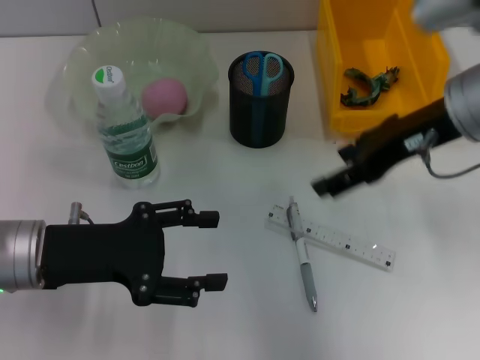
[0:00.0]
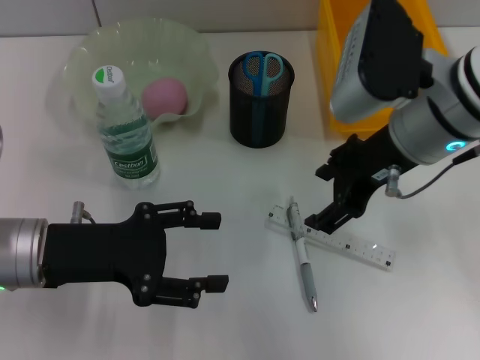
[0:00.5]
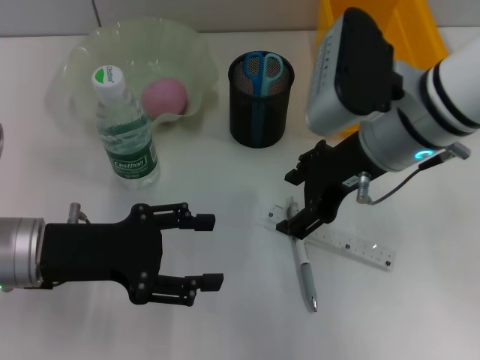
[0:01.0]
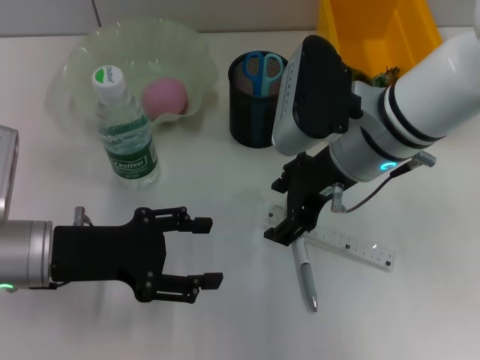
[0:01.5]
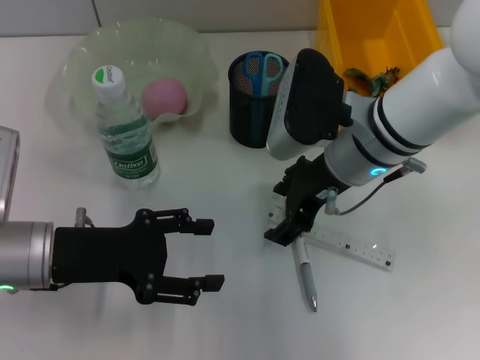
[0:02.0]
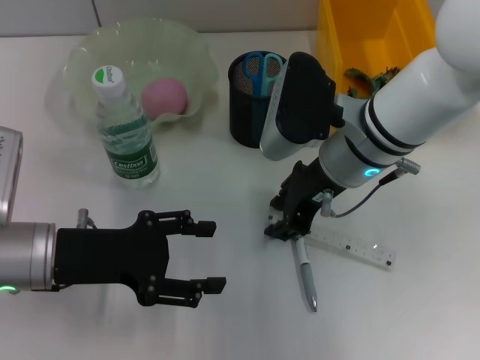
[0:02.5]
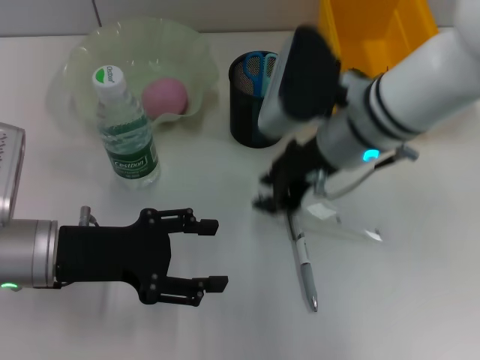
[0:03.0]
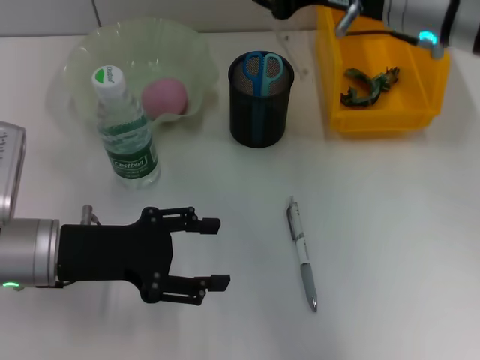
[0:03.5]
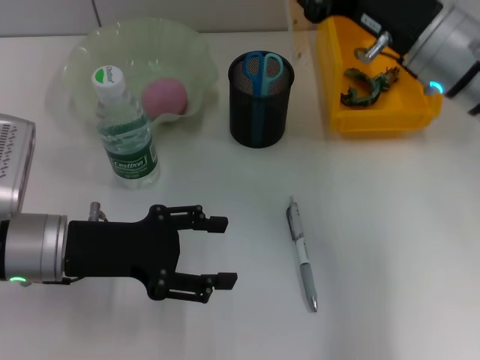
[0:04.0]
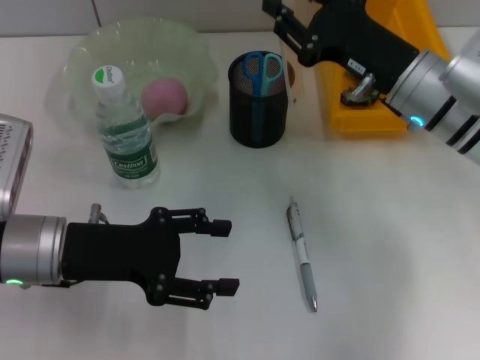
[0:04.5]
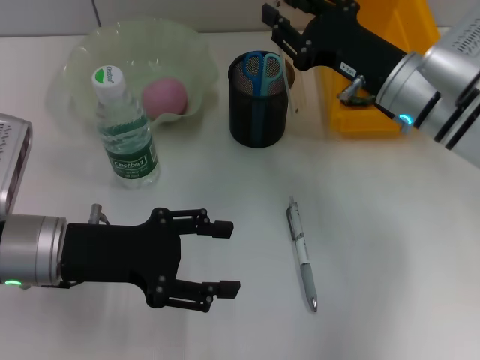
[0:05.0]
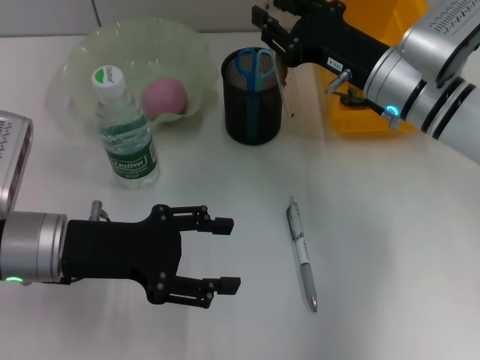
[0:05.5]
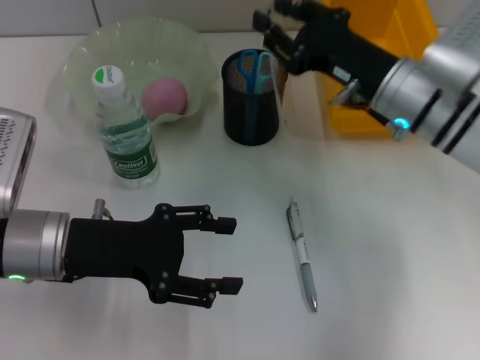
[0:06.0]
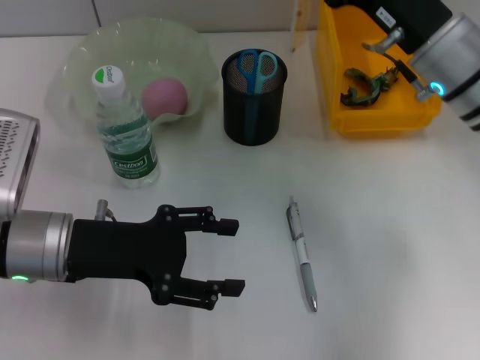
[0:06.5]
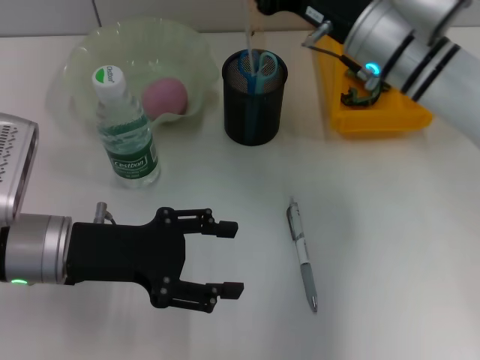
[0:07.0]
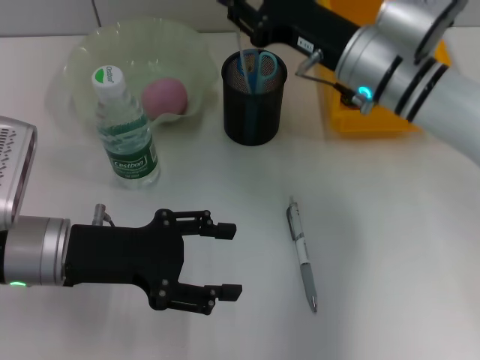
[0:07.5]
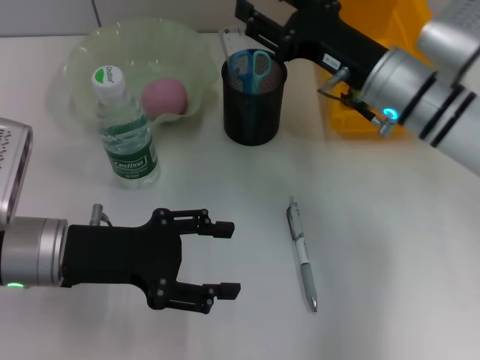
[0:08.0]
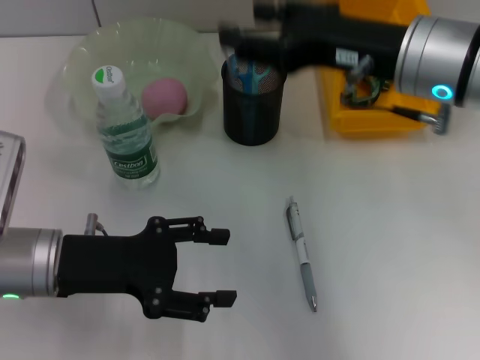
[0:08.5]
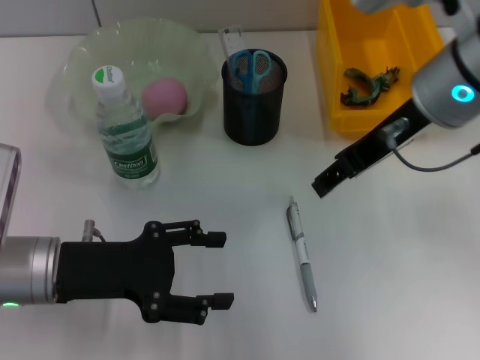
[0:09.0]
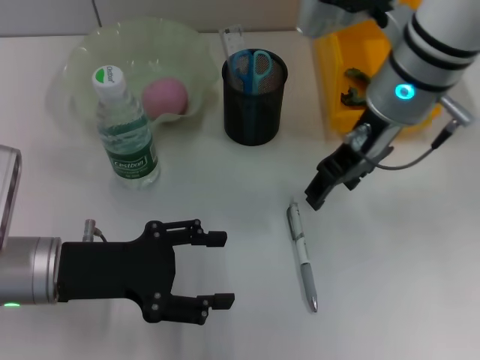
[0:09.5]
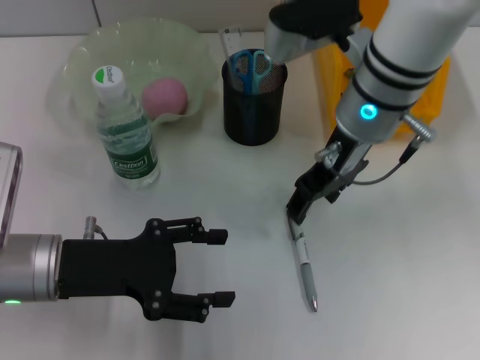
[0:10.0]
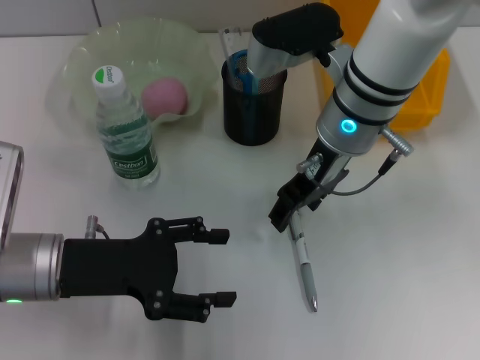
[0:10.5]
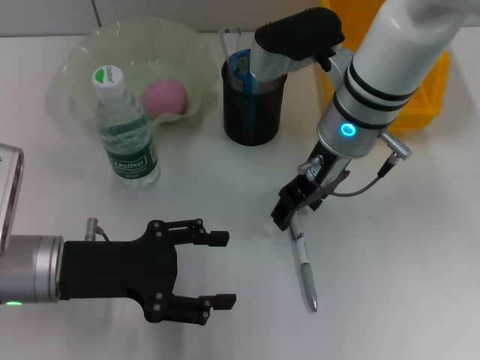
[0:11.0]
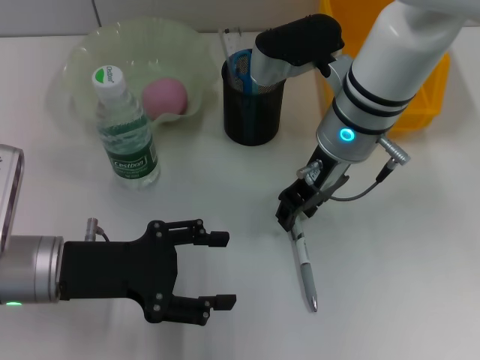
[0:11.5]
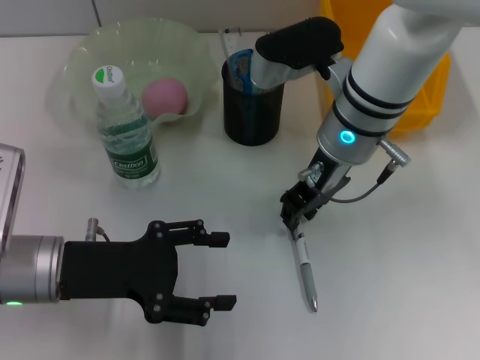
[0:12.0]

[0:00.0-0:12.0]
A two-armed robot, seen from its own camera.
Step, 0:00.0 to 0:02.5: Grab the ruler with the right hand.
Step, 0:03.0 to 0:08.0: Place the ruler into the pen holder with the right hand.
0:00.0 to 0:02.0: The right gripper moves to the left and downward, roughly 10 cm.
0:02.0 to 0:04.0: The right gripper goes about 5 cm to the right, goes upward and returns, some 10 cm each way, and closes.
0:04.0 to 0:06.0: The right gripper shifts about 5 cm downward.
0:06.0 to 0:08.0: The grippers stay close to where they were, moving slightly.
0:08.0 to 0:10.0: The right gripper travels to the left and upward by about 10 cm.
0:10.0 to 0:12.0: The right gripper closes up.

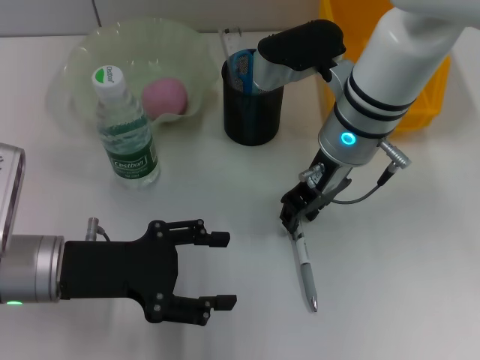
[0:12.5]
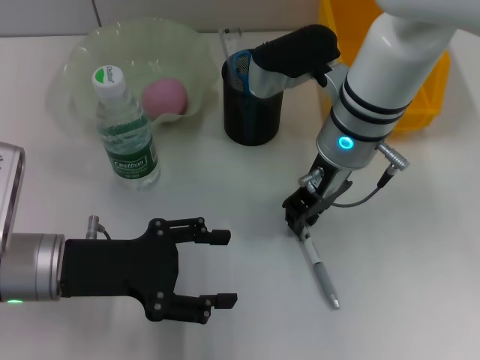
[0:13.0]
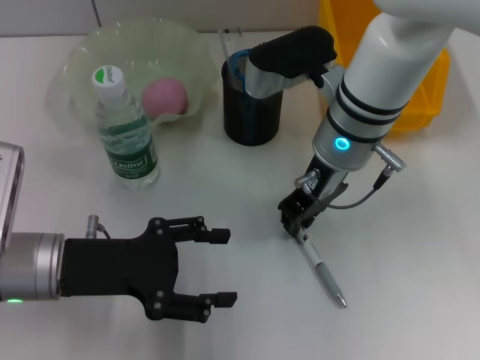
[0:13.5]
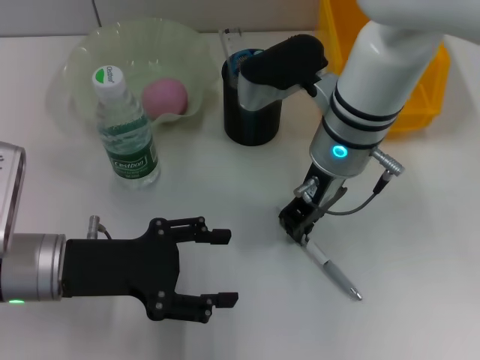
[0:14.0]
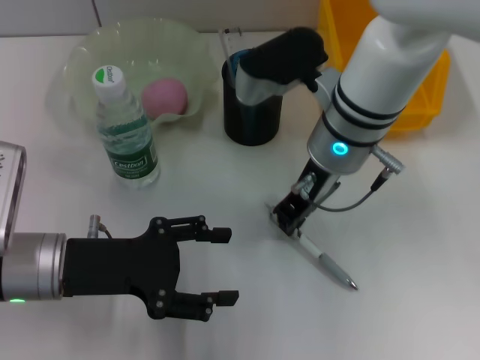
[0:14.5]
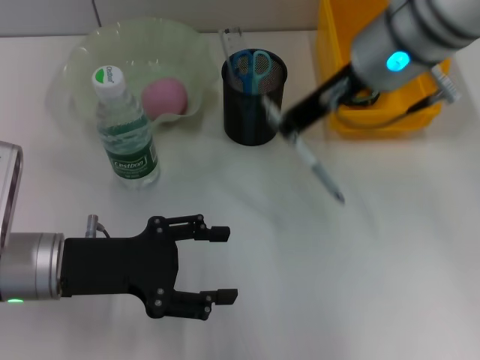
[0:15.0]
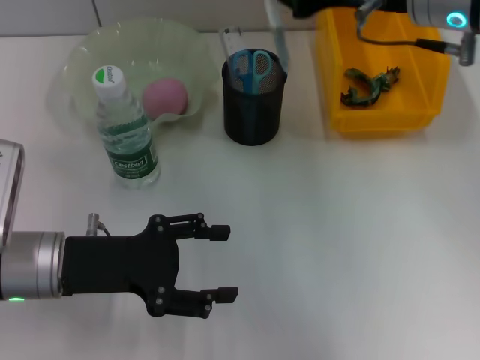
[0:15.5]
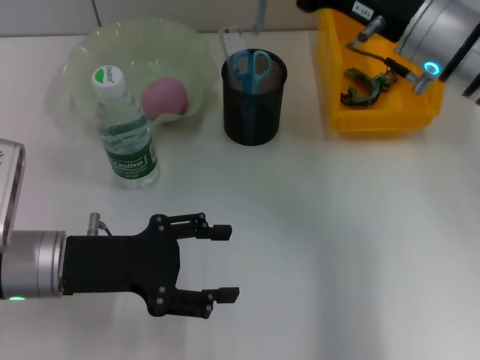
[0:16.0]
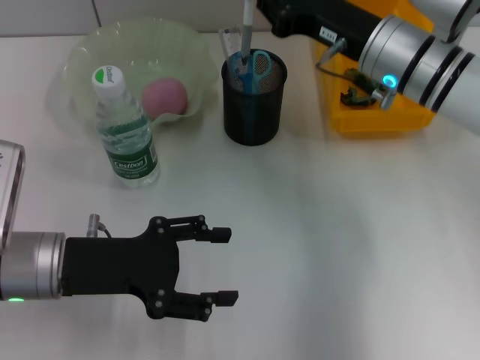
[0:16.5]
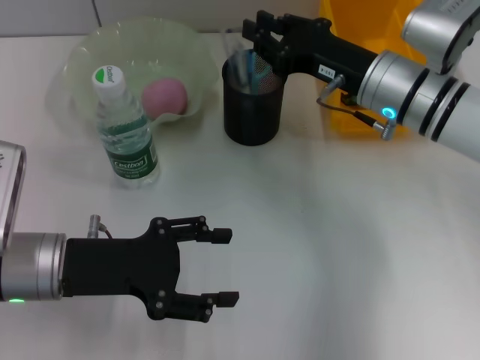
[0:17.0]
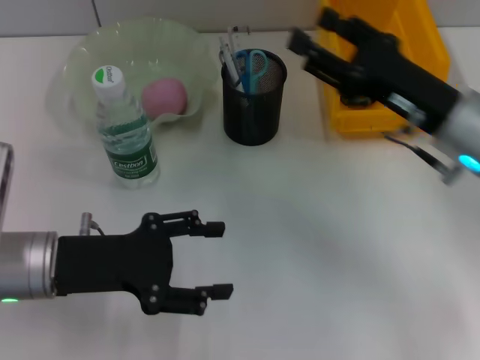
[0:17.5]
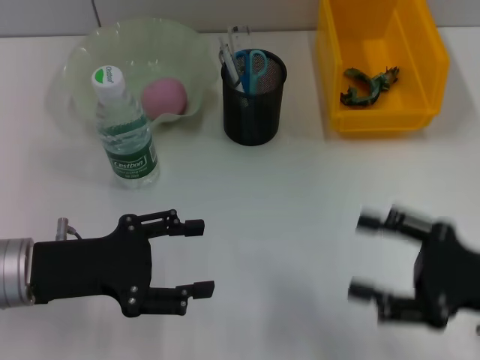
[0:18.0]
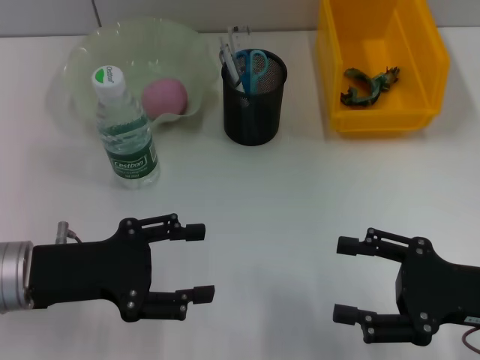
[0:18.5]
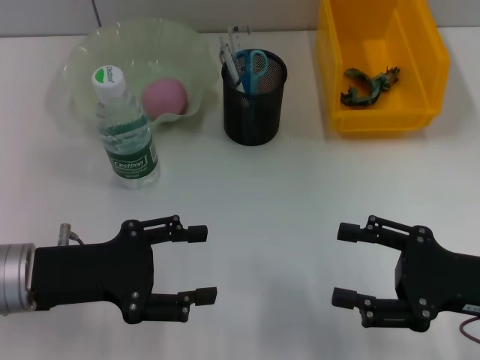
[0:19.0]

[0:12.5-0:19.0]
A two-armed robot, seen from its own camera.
Step, 0:13.5 to 0:17.0: Place the gray spring-action pen into the pen holder with the right hand.
0:12.5 to 0:14.5: The grippers make only small movements.
0:14.5 to 0:17.0: The right gripper heads to the right, covering some 10 cm, and goes upward and returns, approximately 10 cm each way.
0:17.0 to 0:19.0: The right gripper travels backward and to the right by some 20 cm, and opens.

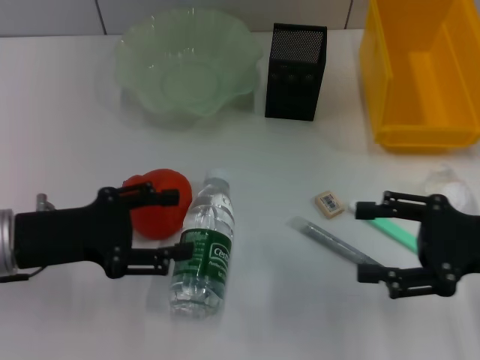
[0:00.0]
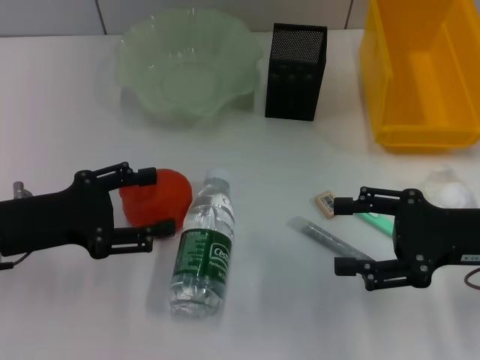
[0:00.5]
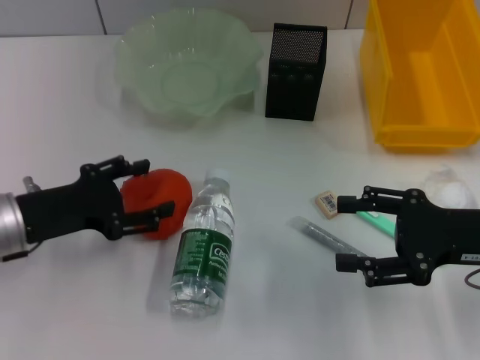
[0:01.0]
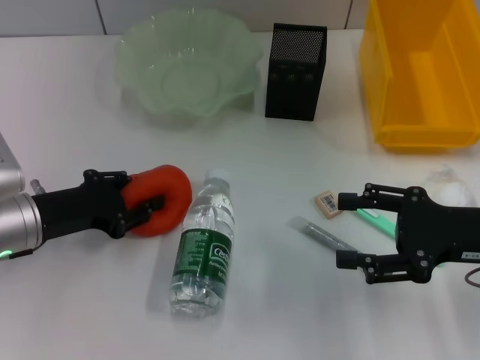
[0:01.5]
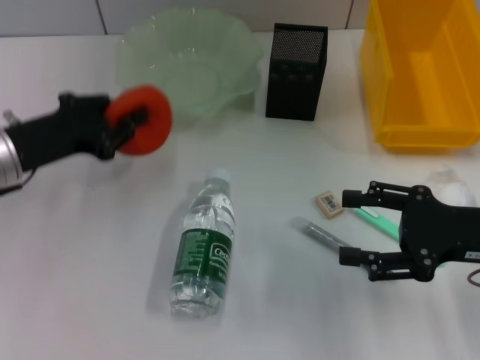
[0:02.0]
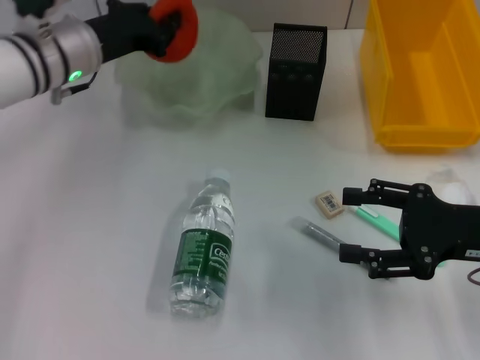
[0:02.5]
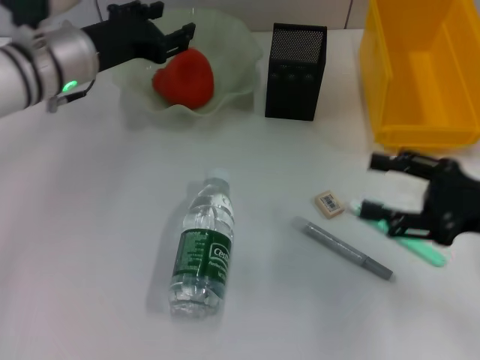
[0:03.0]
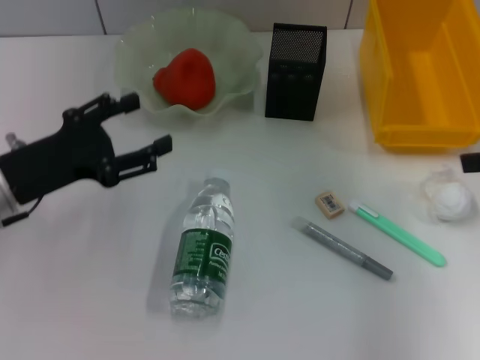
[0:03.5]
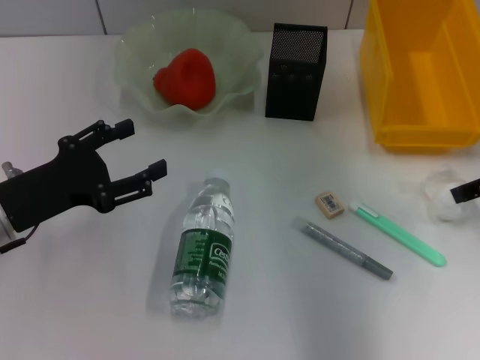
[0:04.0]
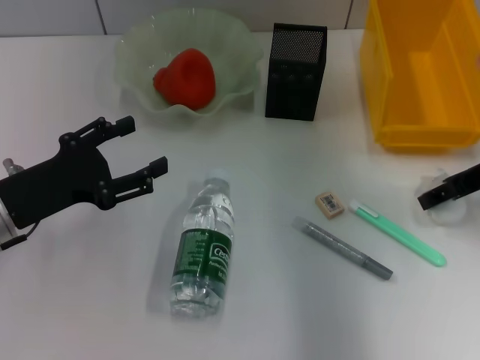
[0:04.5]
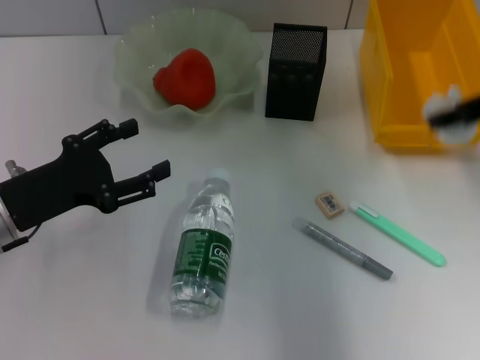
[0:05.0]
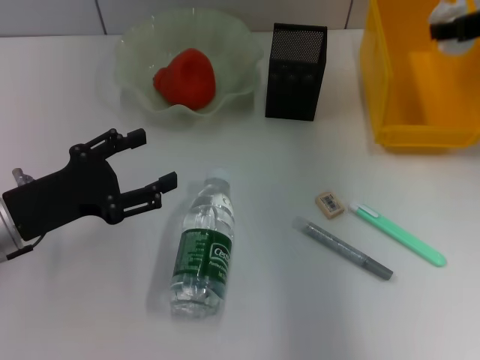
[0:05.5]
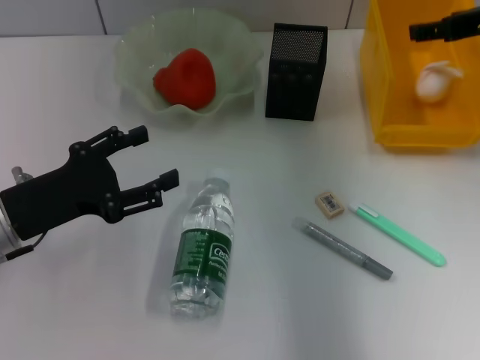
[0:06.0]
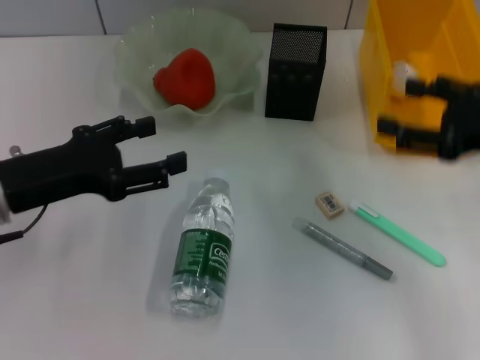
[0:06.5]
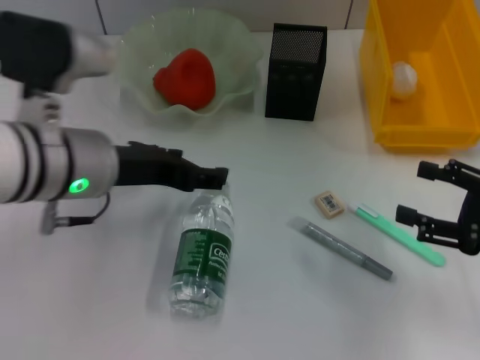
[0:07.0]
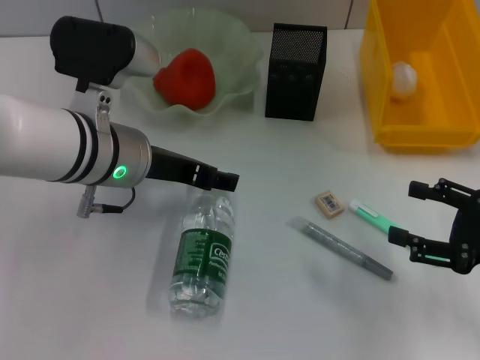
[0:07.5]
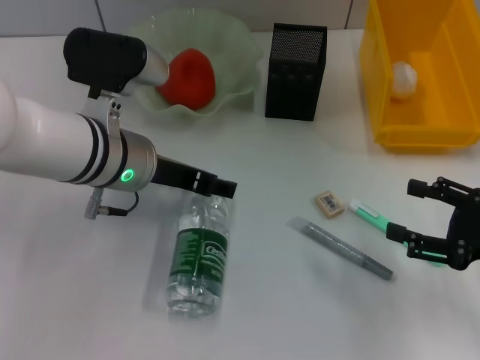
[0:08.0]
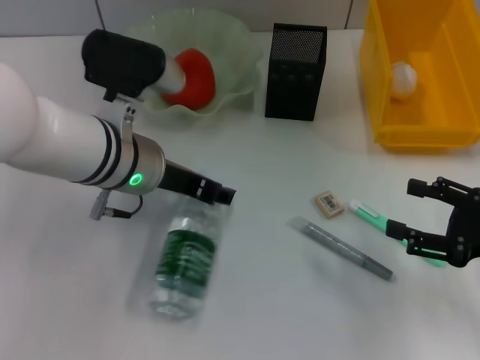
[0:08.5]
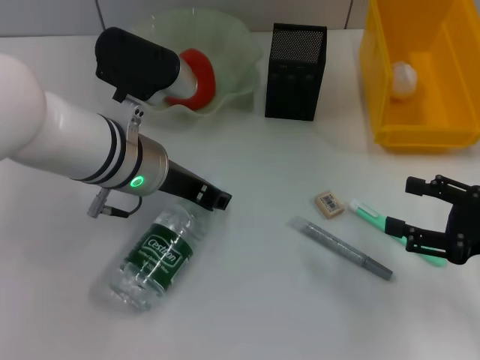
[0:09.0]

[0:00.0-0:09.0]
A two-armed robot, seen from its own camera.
Step, 0:00.0 to 0:01.5: Grab the orange with the left hand.
Step, 0:02.0 to 0:02.5: Place the orange into the fruit bowl with the left hand.
Step, 0:03.0 to 0:04.5: Grab the paper ball with the right hand.
Step, 0:05.0 to 0:06.0: Place the paper ball into the trash can with the right hand.
Step, 0:06.5 to 0:08.5: Grab the water bottle with the left hand.
0:00.0 to 0:02.0: The left gripper heads forward, covering about 5 cm, and closes.
0:02.0 to 0:04.5: The right gripper goes roughly 10 cm forward and upward. Meanwhile the left gripper goes forward and returns, roughly 10 cm each way, and opens its fingers.
0:04.5 to 0:07.0: The right gripper travels backward and downward by roughly 15 cm, and closes, then opens again, while the left gripper goes roughly 15 cm to the right and upward.
0:07.0 to 0:09.0: The left gripper shifts by some 5 cm, and closes.
